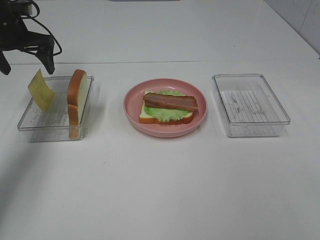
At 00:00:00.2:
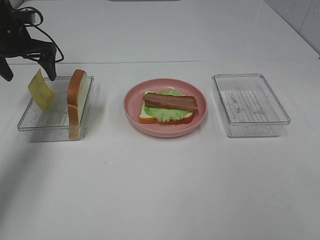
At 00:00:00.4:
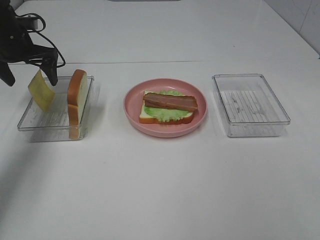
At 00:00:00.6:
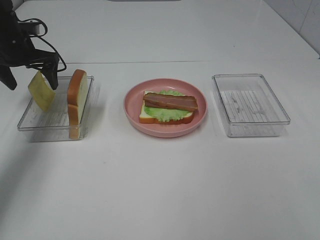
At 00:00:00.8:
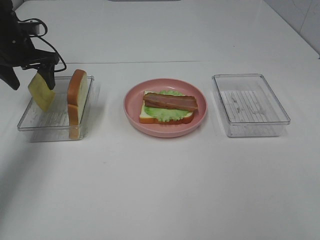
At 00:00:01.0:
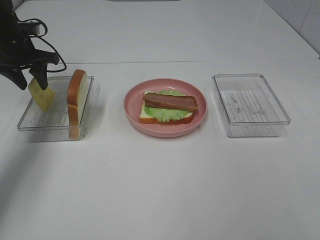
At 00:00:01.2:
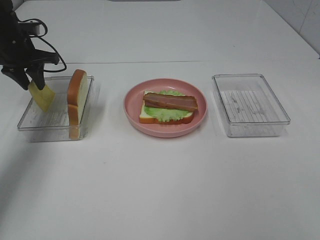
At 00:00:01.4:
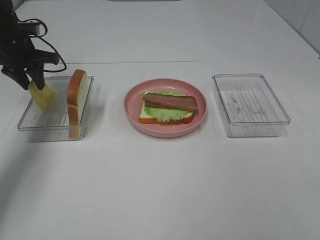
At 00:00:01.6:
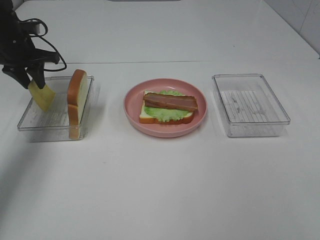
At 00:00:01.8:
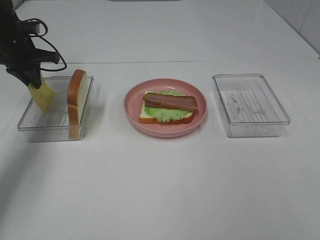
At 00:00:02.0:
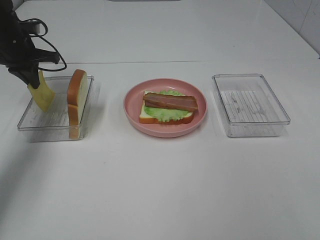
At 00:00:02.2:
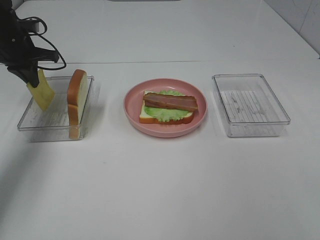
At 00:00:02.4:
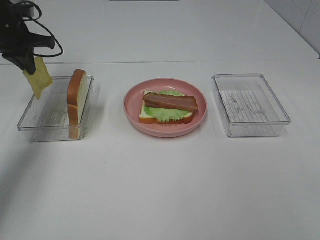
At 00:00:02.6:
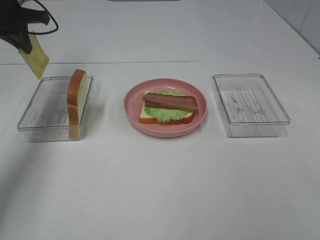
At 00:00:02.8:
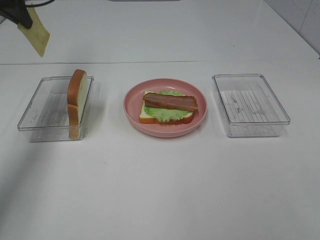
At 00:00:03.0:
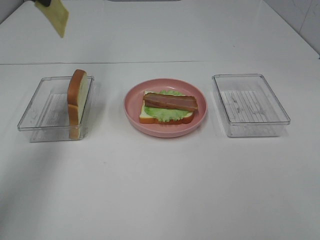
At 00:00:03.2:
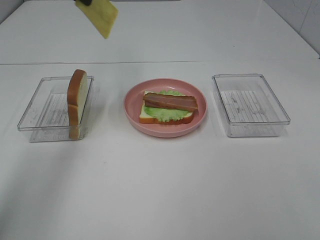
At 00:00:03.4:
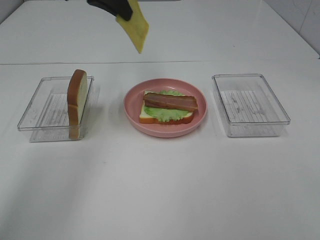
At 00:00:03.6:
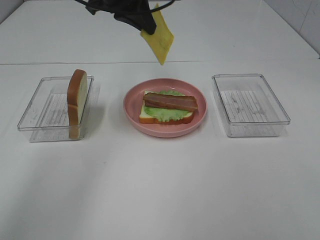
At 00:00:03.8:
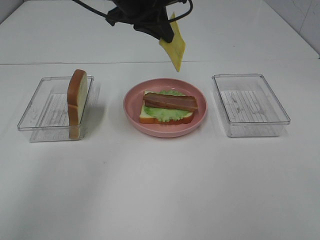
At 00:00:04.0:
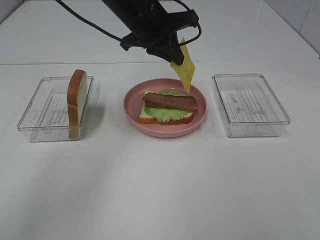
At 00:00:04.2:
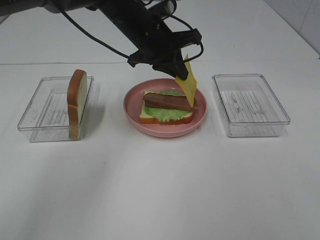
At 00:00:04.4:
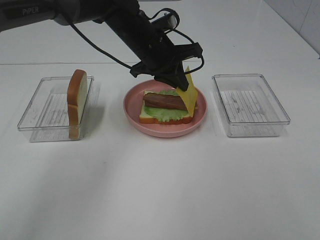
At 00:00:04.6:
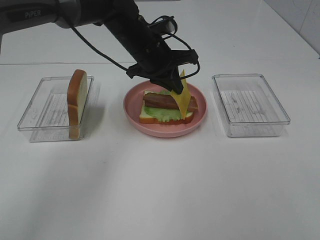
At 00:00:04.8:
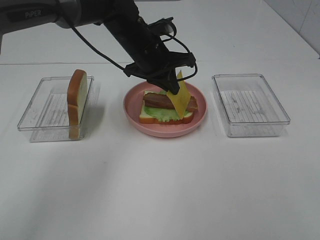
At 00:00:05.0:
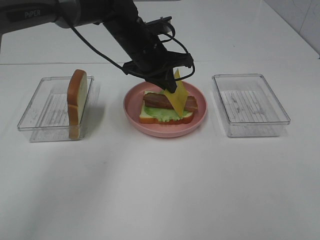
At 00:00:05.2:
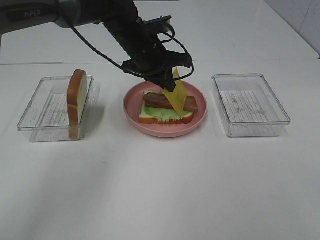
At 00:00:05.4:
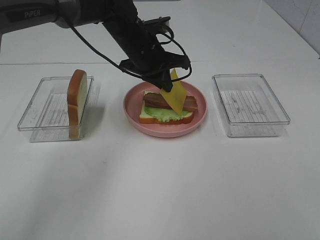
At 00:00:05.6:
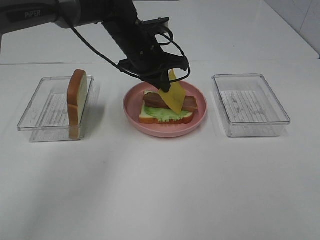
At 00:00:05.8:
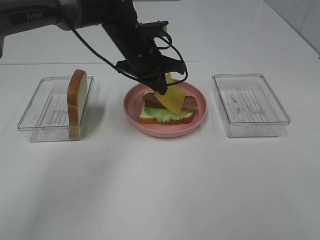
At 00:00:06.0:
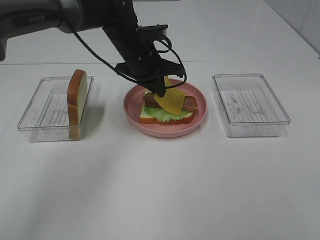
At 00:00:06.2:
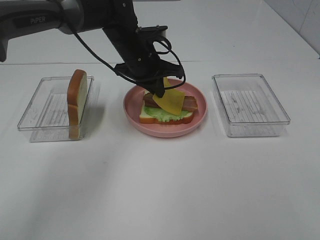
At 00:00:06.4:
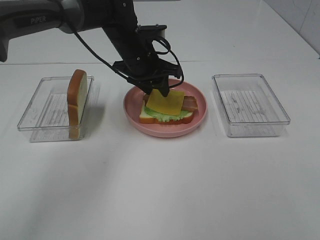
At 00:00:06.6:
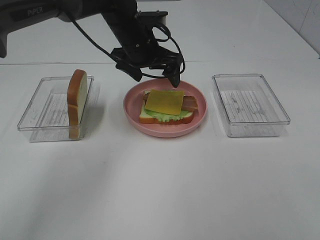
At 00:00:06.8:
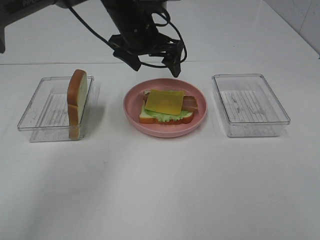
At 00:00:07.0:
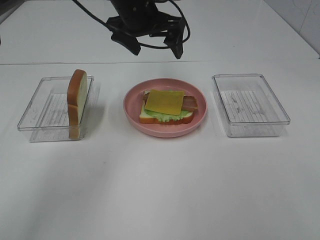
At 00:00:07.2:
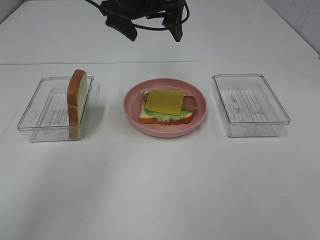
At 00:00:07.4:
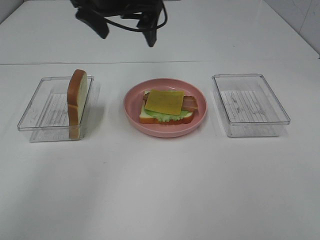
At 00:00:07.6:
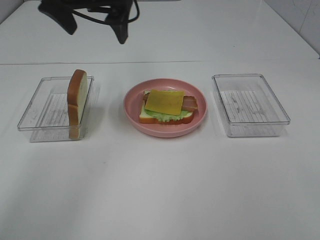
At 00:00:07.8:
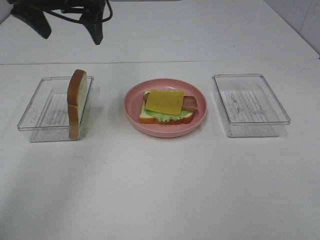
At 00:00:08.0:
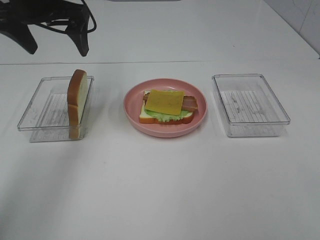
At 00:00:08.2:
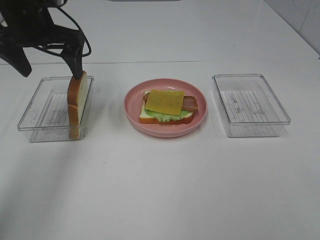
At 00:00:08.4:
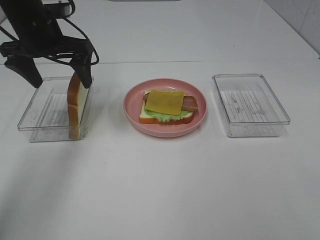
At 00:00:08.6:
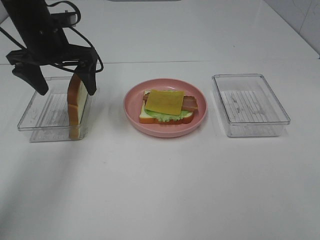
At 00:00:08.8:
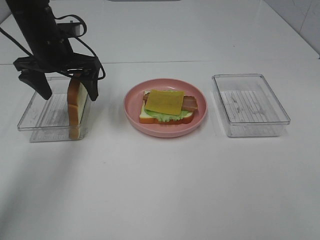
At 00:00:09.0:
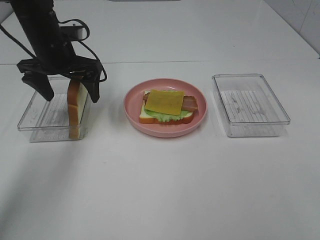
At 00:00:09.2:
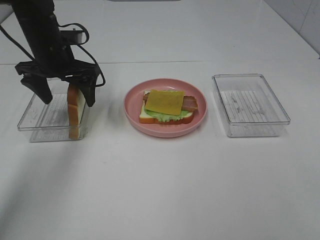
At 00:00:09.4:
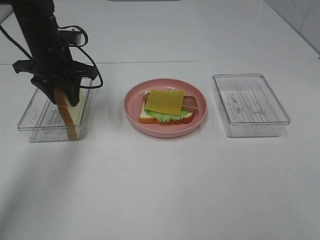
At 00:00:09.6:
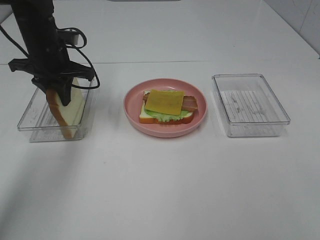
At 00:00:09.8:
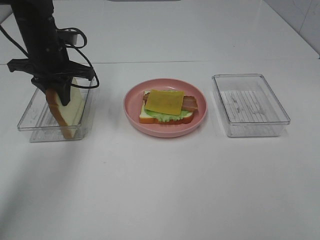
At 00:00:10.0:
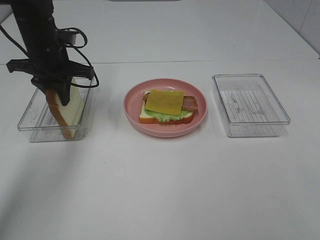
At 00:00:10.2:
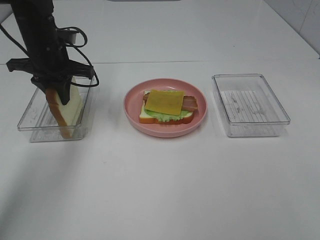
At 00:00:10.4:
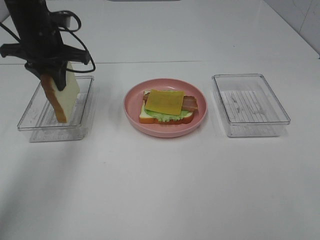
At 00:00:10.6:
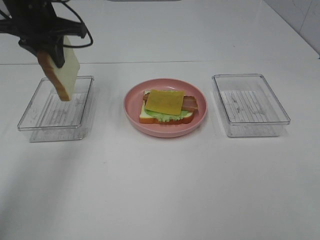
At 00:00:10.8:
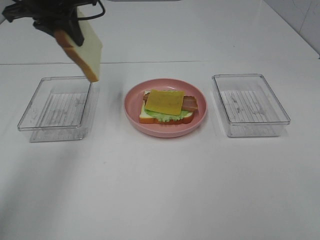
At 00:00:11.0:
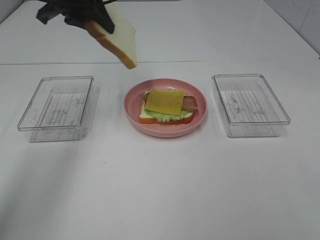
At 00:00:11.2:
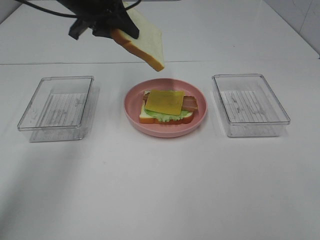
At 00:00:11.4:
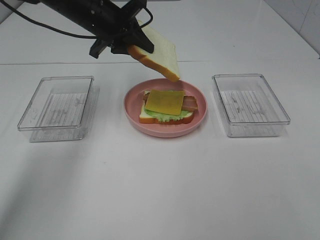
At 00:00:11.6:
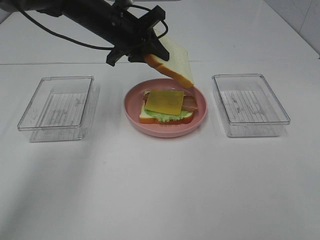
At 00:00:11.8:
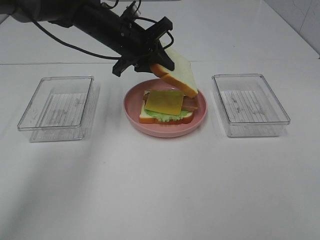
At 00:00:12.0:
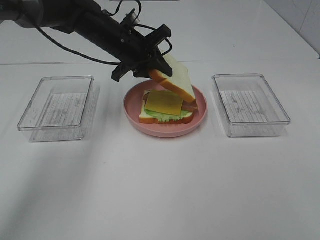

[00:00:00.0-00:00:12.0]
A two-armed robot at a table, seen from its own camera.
Task of the whole recording: Make sandwiches.
Step, 00:00:00.0 to 00:00:02.0: Left hand:grab the cheese slice.
Step, 00:00:02.2 to 00:00:06.6: Left hand:place the cheese slice on top of the bacon.
Step, 00:00:06.8 to 00:00:09.8: Left hand:grab the bread slice.
00:00:00.0 to 00:00:01.6: The left gripper closes its fingers.
00:00:01.6 to 00:00:03.0: The left gripper is displaced upward by some 20 cm.
00:00:03.0 to 00:00:04.4: The left gripper goes about 25 cm to the right and downward.
00:00:04.4 to 00:00:06.0: There are only small adjustments of the grippers.
00:00:06.0 to 00:00:07.6: The left gripper goes approximately 20 cm upward and to the left, and opens its fingers.
00:00:07.6 to 00:00:09.0: The left gripper shifts approximately 15 cm downward and to the left.
00:00:09.0 to 00:00:10.4: The left gripper closes its fingers.
00:00:10.4 to 00:00:12.0: The left gripper moves to the right, approximately 10 cm.

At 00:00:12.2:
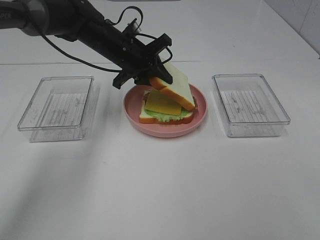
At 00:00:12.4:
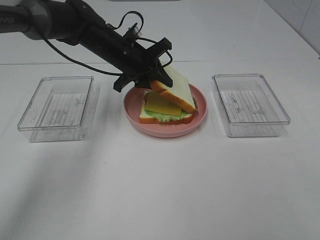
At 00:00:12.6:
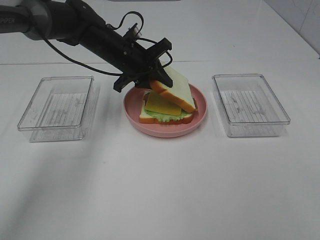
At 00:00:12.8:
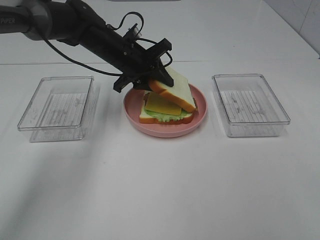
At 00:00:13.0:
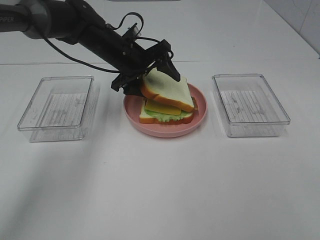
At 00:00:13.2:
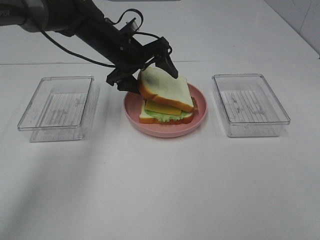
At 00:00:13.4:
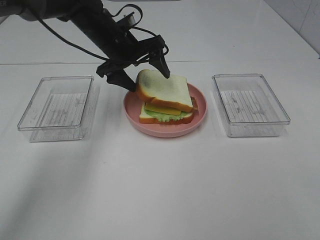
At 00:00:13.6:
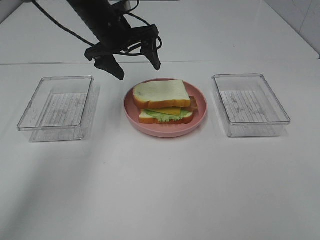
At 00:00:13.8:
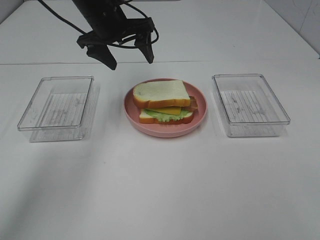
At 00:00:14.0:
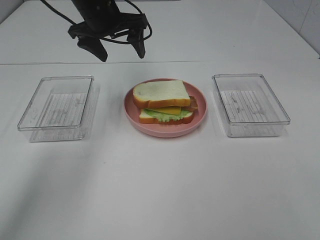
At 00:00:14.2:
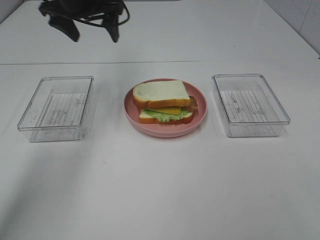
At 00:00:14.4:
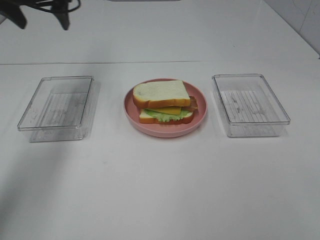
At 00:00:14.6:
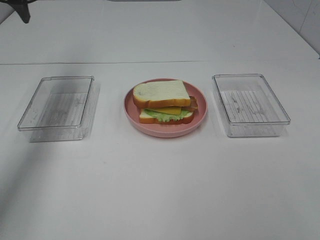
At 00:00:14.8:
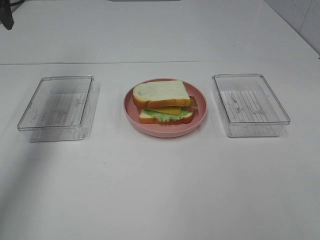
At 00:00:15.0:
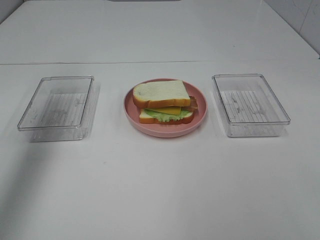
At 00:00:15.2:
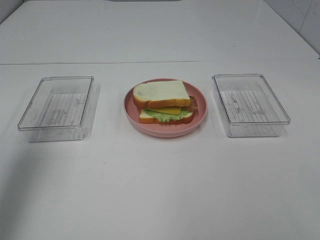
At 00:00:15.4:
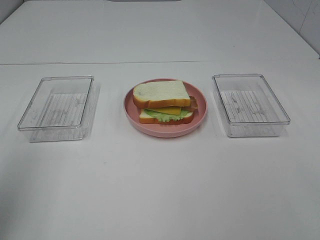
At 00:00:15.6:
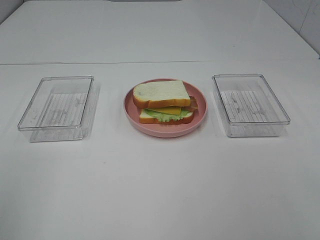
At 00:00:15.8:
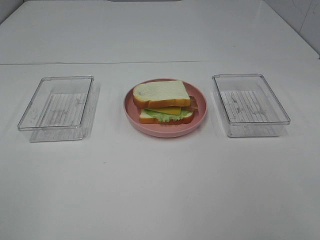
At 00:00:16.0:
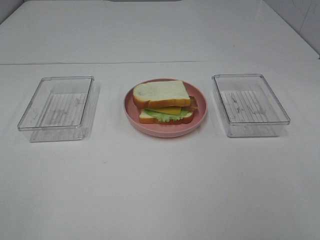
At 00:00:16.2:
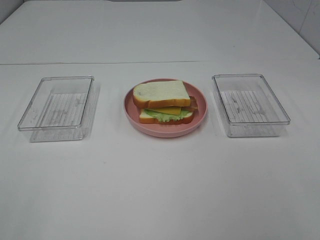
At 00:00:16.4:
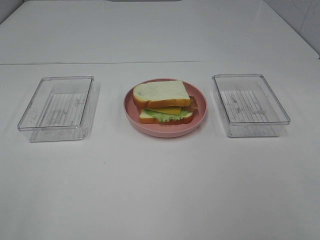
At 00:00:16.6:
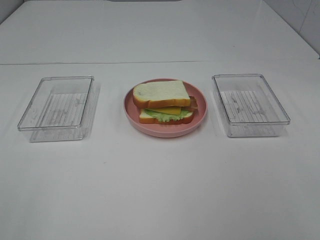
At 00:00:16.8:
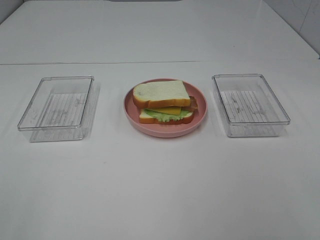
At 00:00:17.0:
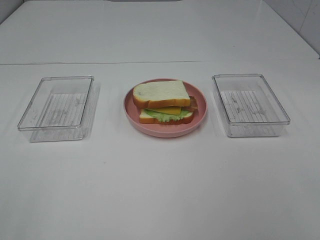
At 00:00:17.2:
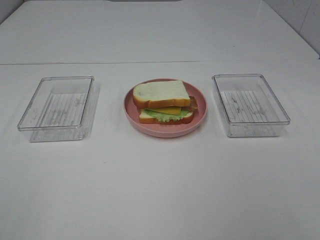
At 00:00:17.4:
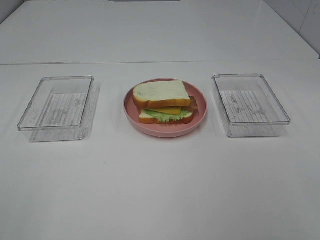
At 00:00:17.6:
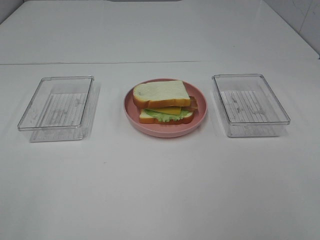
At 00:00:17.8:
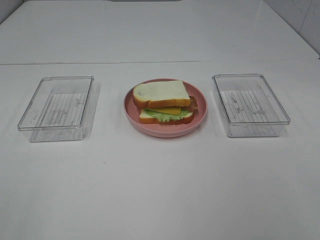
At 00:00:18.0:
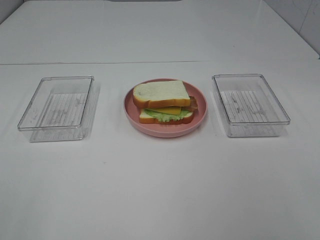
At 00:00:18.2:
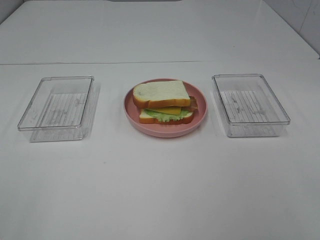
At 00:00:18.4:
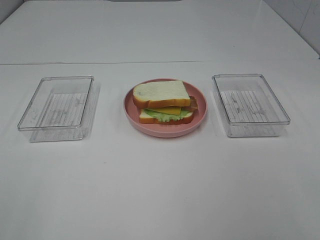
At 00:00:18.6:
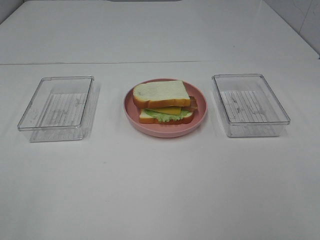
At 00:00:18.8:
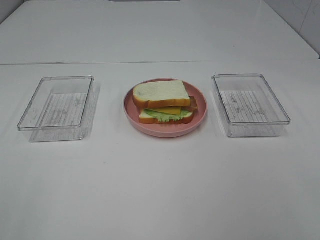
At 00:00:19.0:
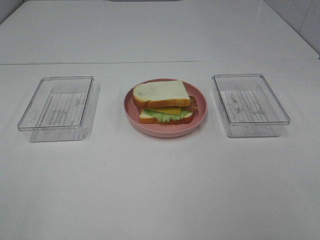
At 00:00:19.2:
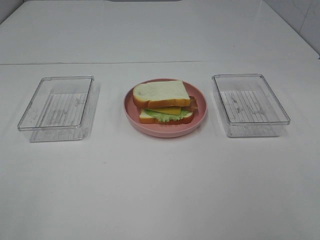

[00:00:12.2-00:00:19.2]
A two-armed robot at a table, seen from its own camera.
Task of the whole recording: Make sandwiches.
00:00:12.2 to 00:00:13.6: The left gripper heads upward, covering some 5 cm, and opens its fingers.
00:00:13.6 to 00:00:15.0: The left gripper moves to the left, backward and upward, about 30 cm.
00:00:15.0 to 00:00:16.4: The left gripper heads backward, covering about 35 cm.
00:00:16.4 to 00:00:19.2: Both grippers stay about where they are.
